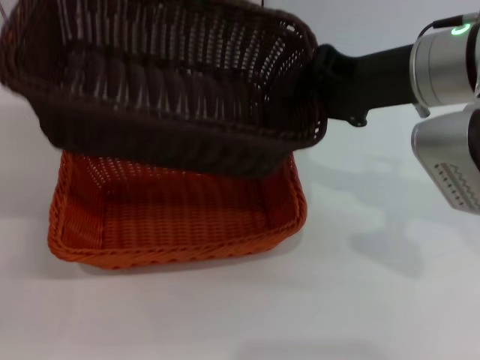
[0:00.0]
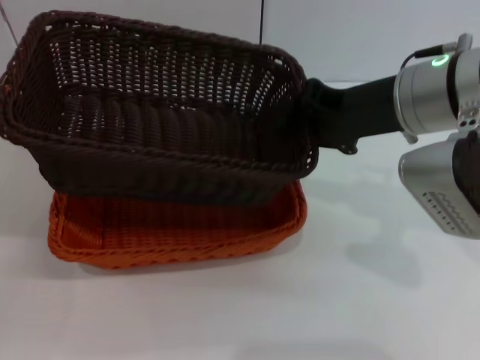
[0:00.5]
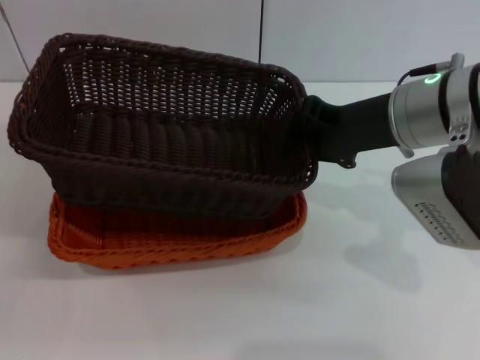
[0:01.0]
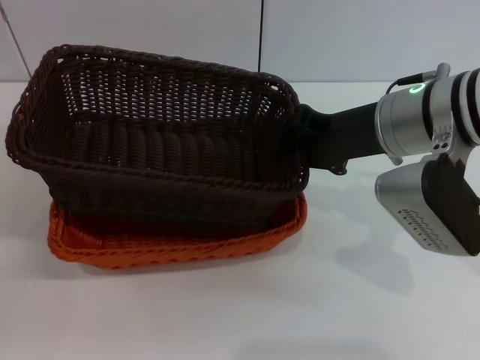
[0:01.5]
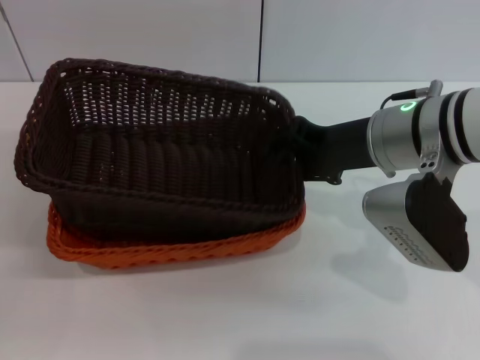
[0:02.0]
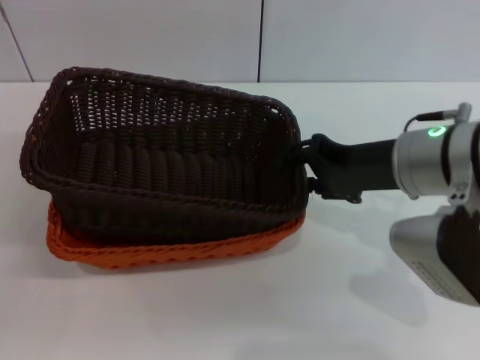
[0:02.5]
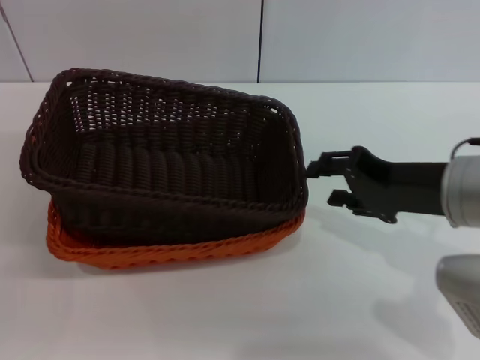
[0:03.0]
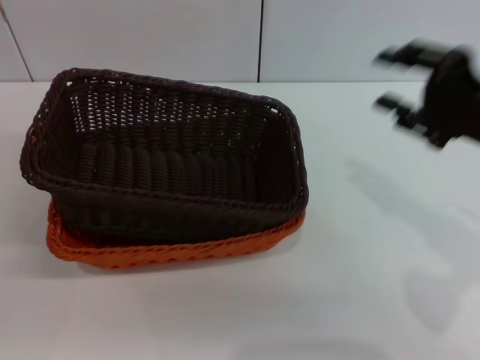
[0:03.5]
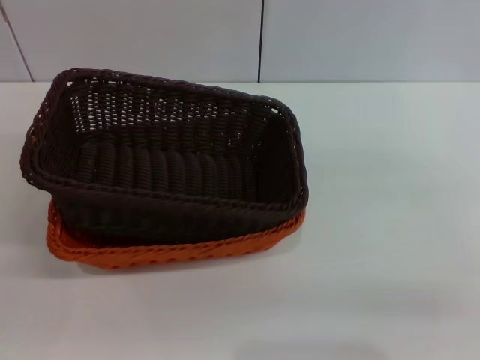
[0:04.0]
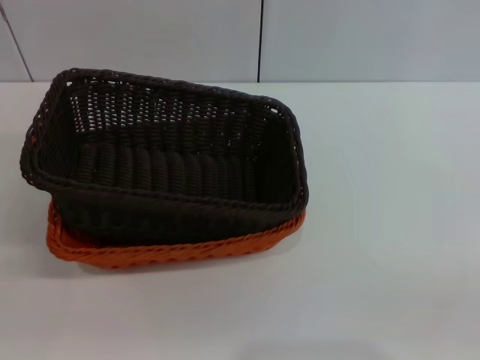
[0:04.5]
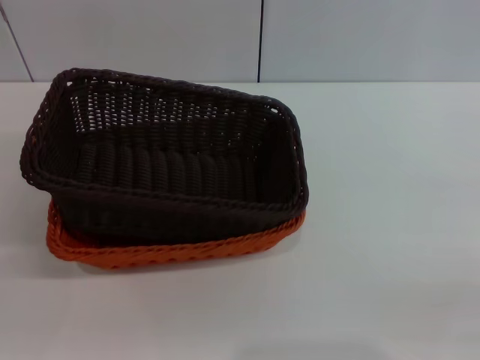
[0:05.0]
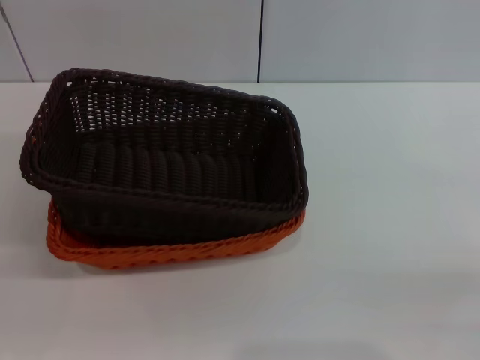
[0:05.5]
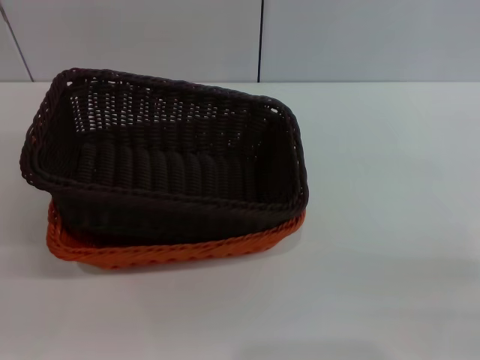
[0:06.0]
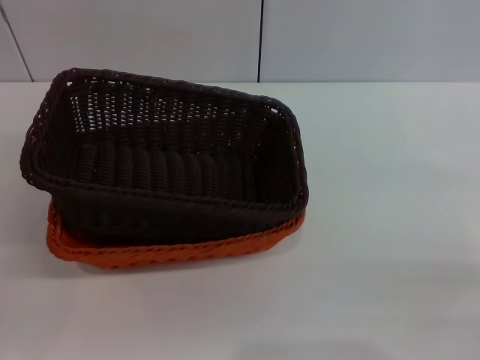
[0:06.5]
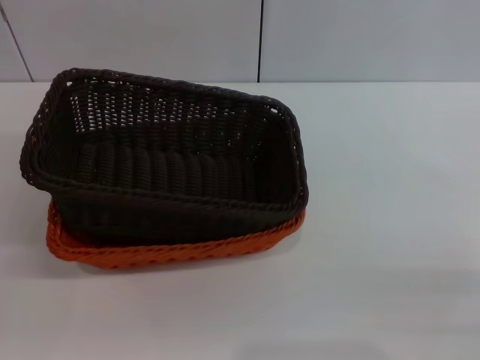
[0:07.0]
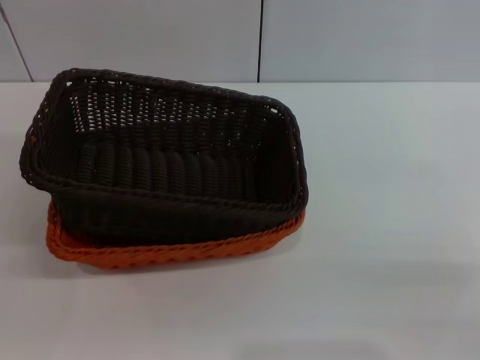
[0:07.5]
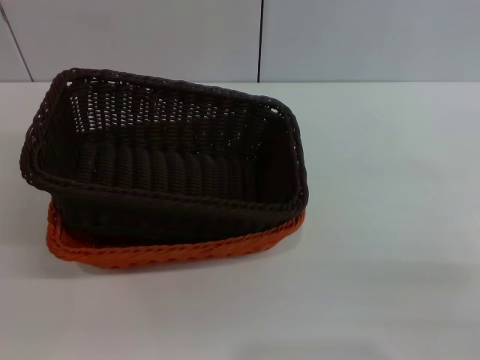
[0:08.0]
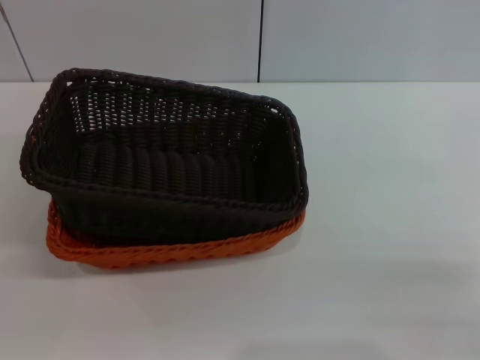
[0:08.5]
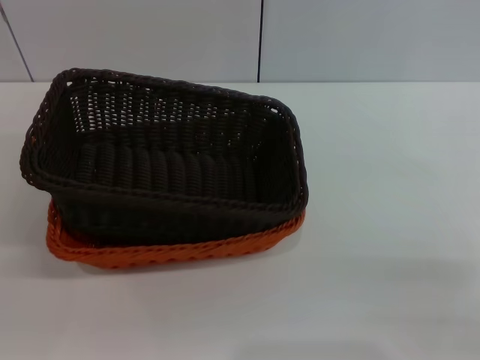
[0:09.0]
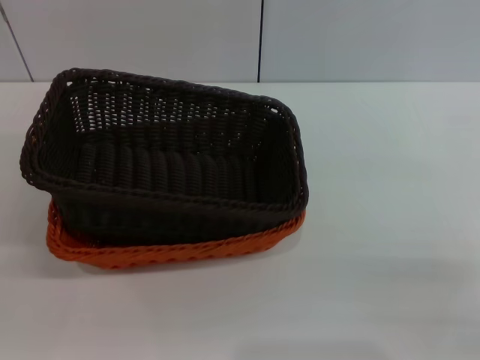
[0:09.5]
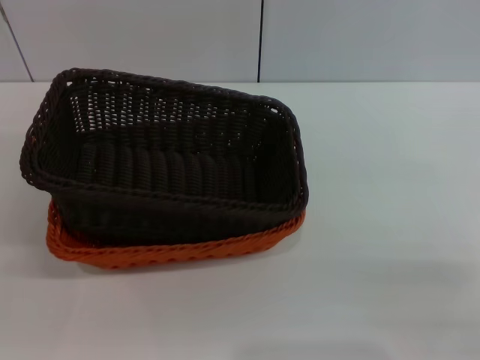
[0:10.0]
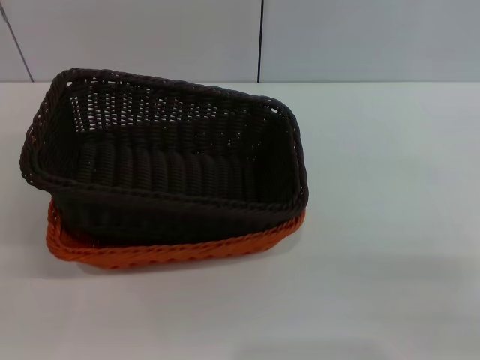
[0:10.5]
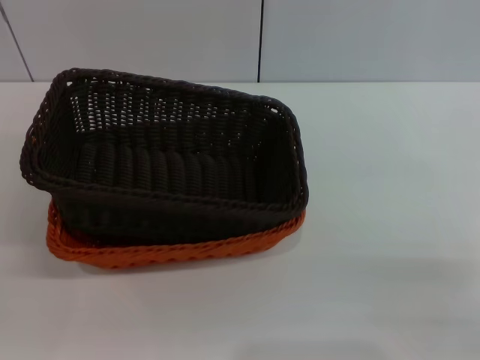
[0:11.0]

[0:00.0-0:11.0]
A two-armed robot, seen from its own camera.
Step, 0:00.0 to 0:02.5: Place the dark basket on the light basket with the right gripper.
0:00.0 to 0:02.0: The right gripper goes approximately 5 cm downward.
0:02.0 to 0:03.5: The right gripper heads to the right and backward, covering some 10 cm, and opens.
0:03.5 to 0:05.5: The right gripper goes some 20 cm downward, to the right and backward, and opens up.
0:07.5 to 0:09.0: Both grippers stay put.
0:09.0 to 0:11.0: The two grippers keep their place.

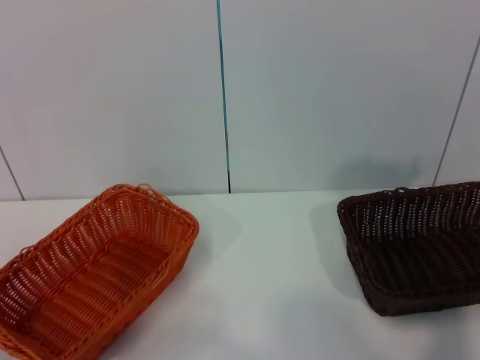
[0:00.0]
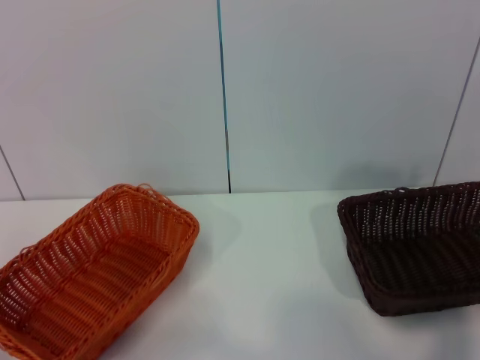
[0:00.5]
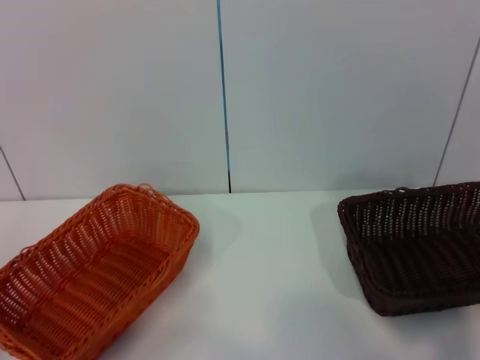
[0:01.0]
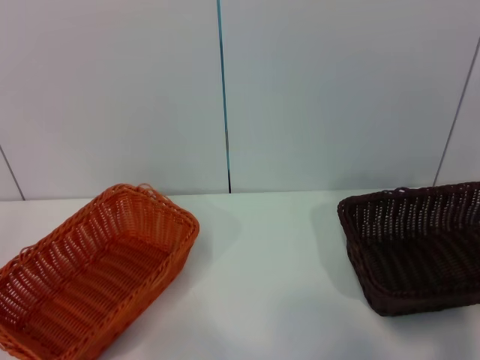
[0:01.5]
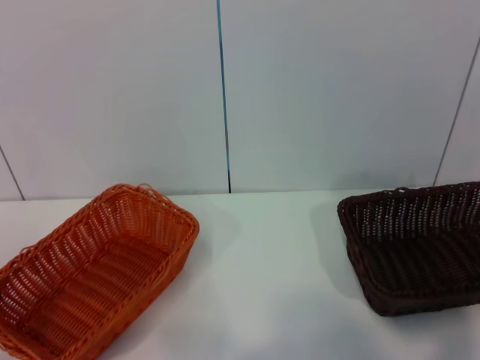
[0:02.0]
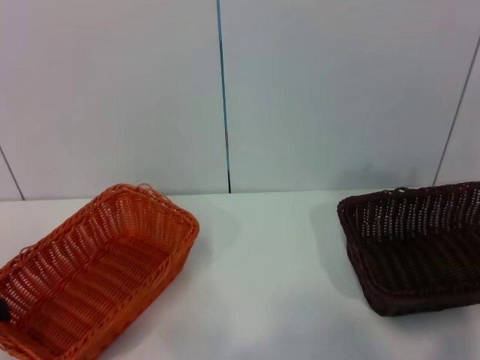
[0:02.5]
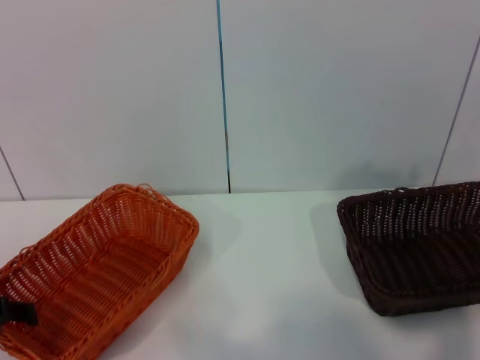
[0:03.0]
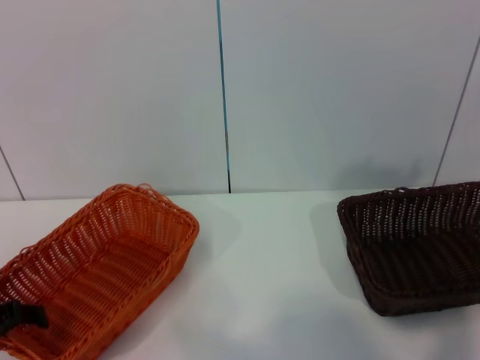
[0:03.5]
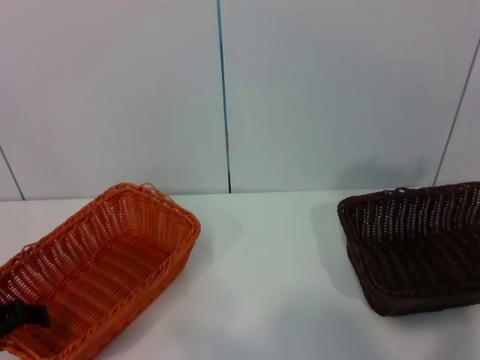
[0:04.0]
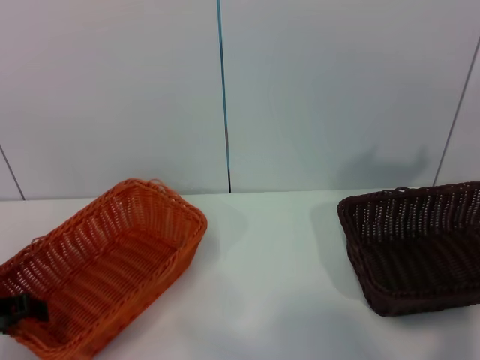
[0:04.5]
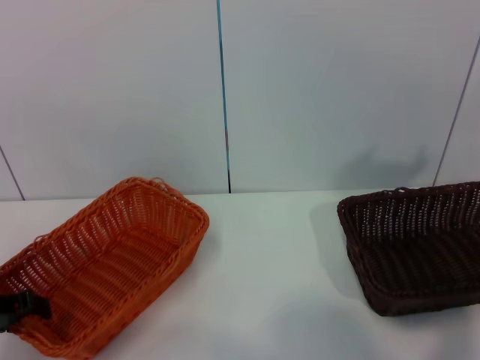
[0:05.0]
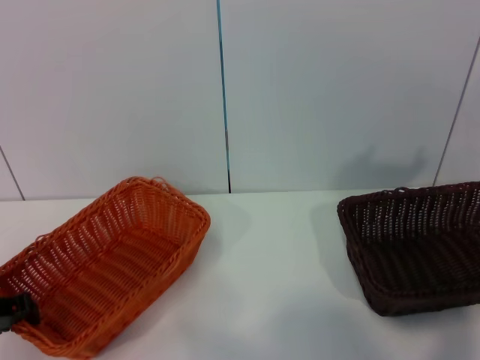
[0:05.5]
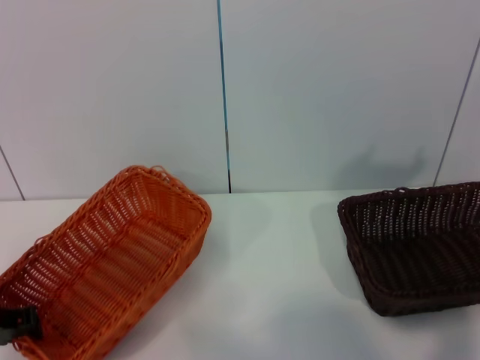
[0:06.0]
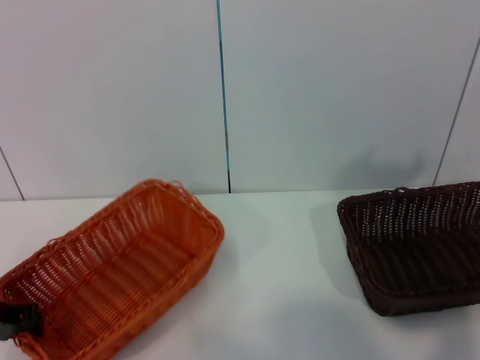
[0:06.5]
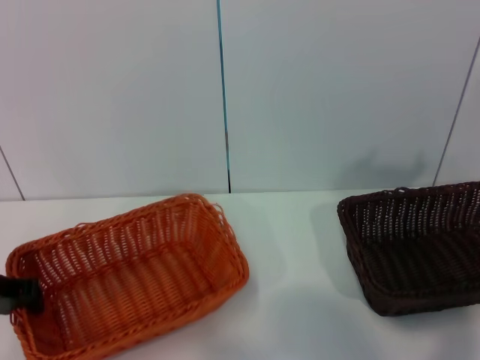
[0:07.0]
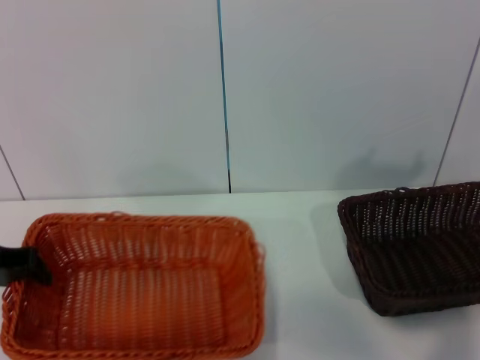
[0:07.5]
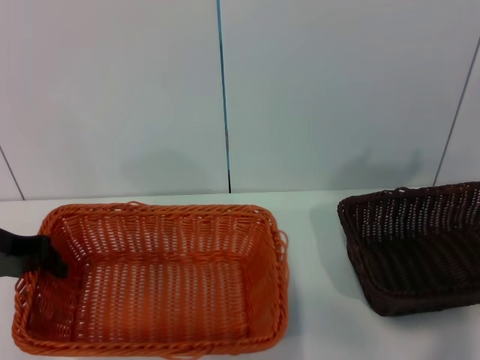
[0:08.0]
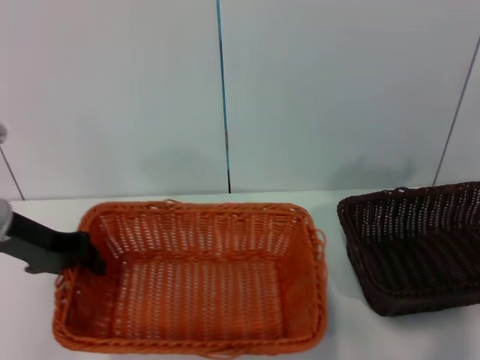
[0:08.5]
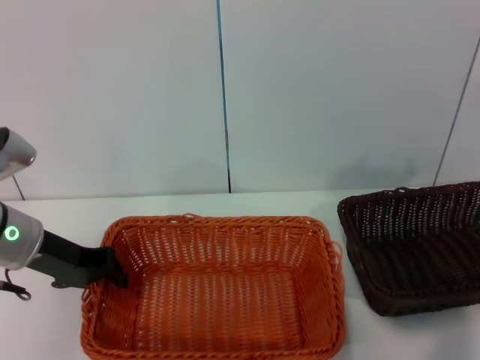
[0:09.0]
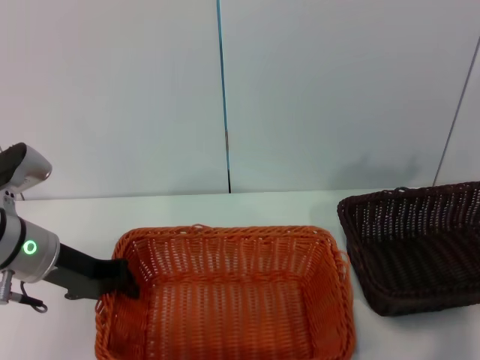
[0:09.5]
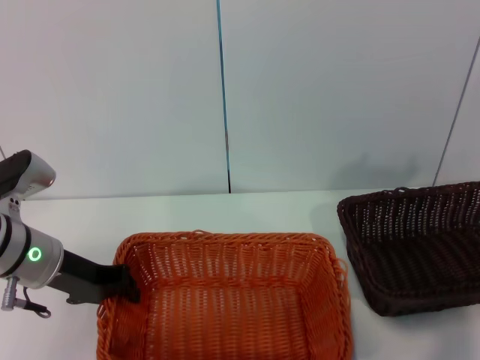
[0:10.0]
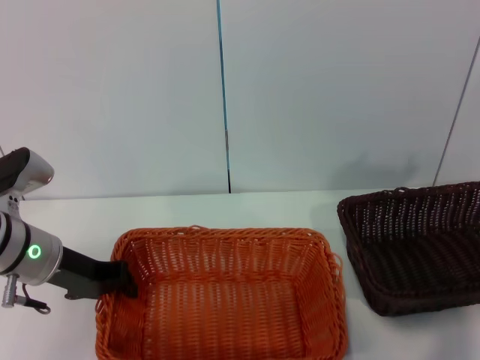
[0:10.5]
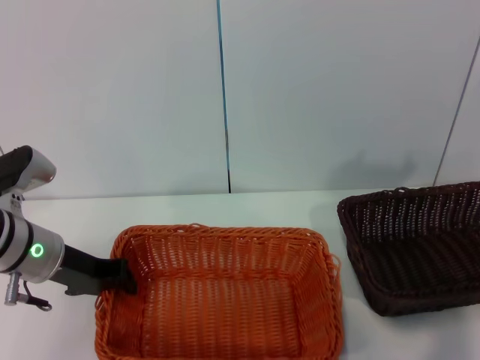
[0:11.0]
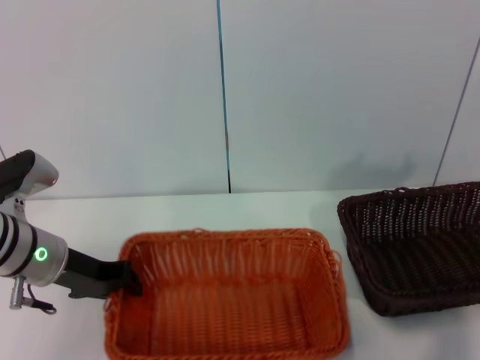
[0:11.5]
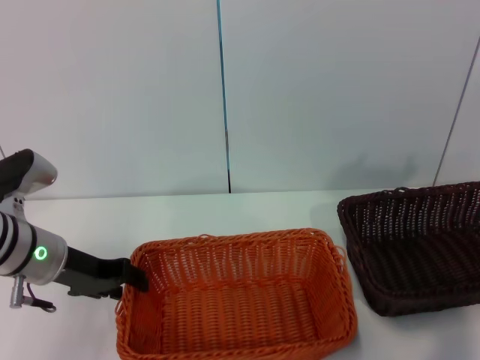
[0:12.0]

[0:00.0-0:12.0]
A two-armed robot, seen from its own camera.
Step, 0:00.0 to 0:07.5: Pick up the light basket with the left gripper.
Step, 0:08.0 to 0:12.0: Place the light basket in the center of view with the left gripper.
0:02.0 to 0:04.0: The left gripper goes approximately 5 cm downward.
0:04.0 to 0:06.0: The left gripper closes up.
0:06.0 to 0:08.0: The left gripper moves upward, approximately 10 cm.
0:08.0 to 0:10.0: The left gripper is displaced to the right and downward by some 10 cm.
0:10.0 to 0:12.0: Neither gripper changes place.

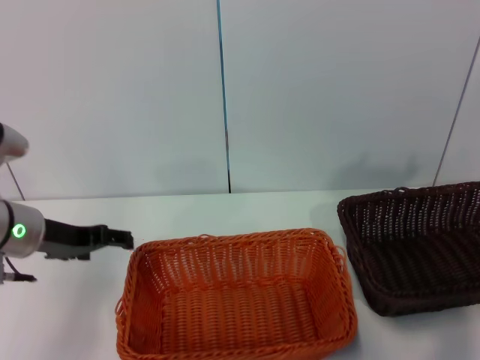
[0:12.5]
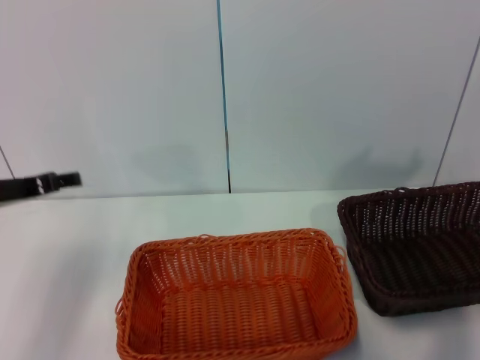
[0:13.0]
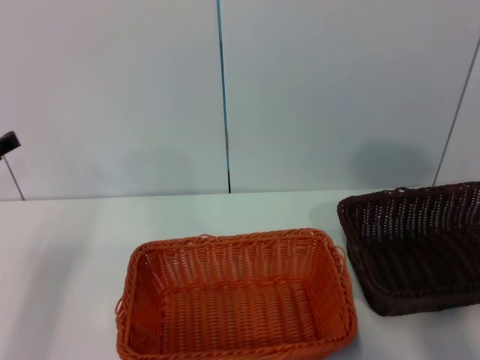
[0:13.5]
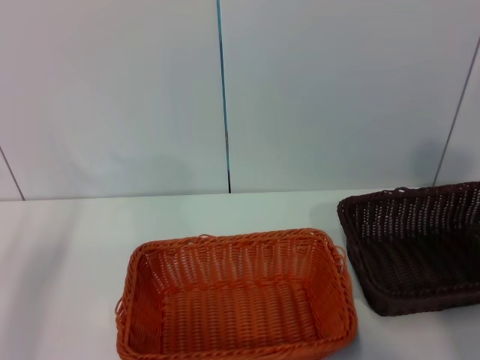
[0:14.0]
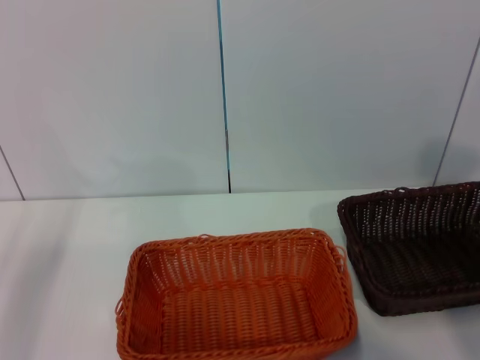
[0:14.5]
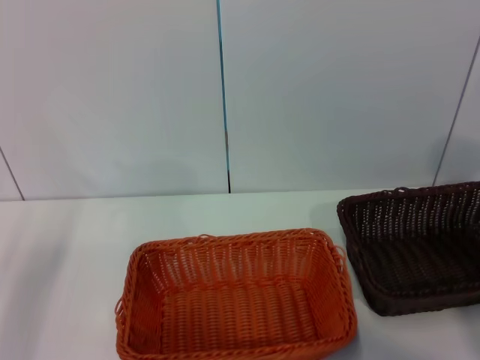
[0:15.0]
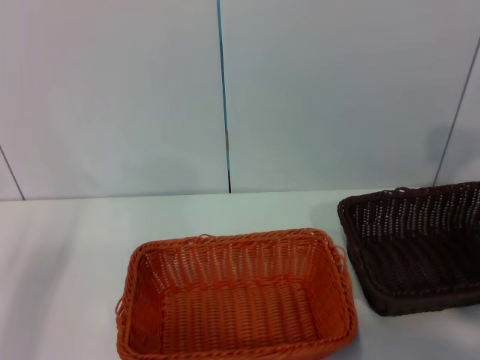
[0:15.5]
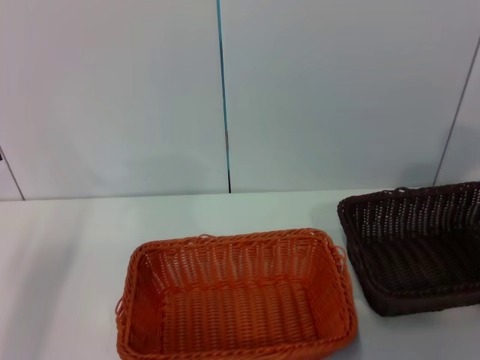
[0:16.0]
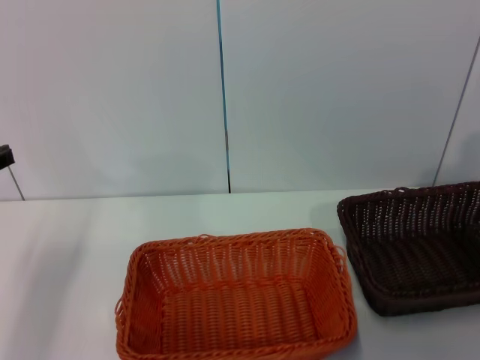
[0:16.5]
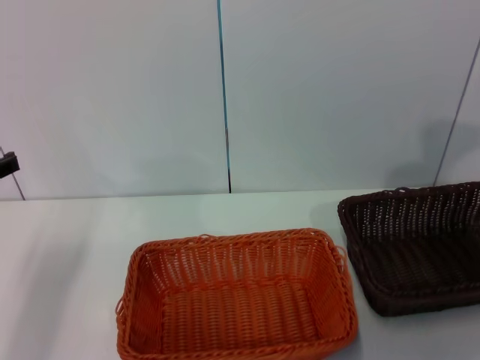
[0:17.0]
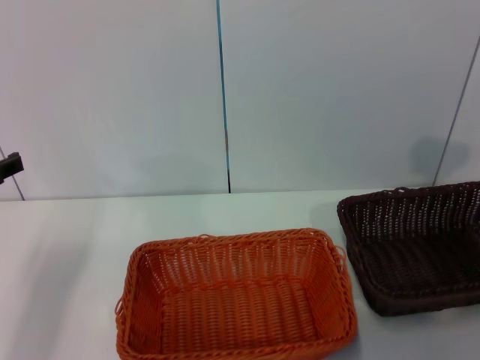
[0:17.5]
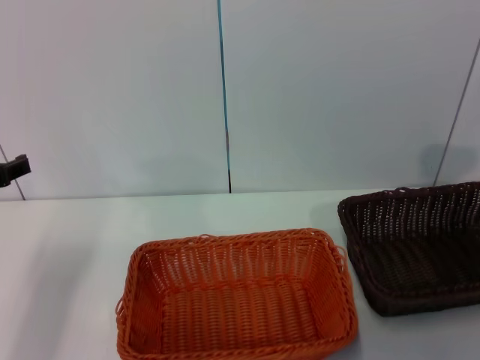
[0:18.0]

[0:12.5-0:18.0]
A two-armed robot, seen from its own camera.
0:12.5 to 0:14.5: The right gripper heads to the right, covering roughly 10 cm. The left gripper travels to the left by some 10 cm.
0:14.5 to 0:16.0: The right gripper moves forward, roughly 10 cm.
